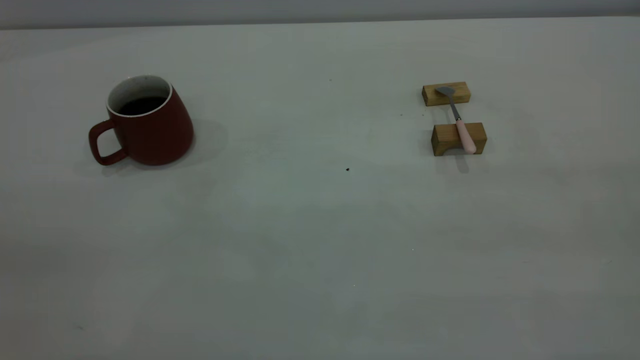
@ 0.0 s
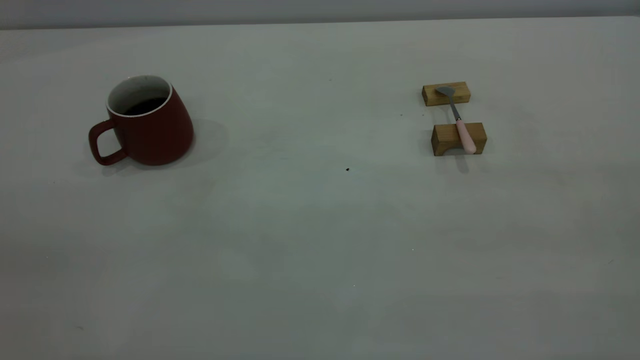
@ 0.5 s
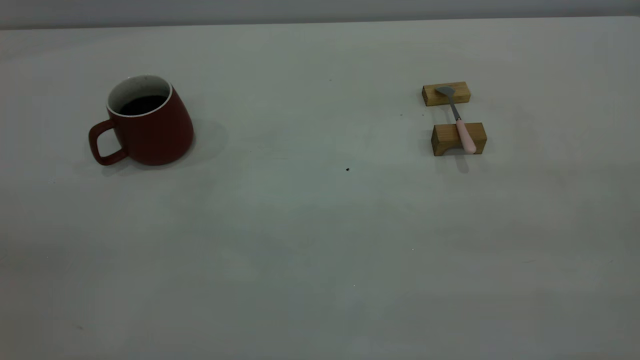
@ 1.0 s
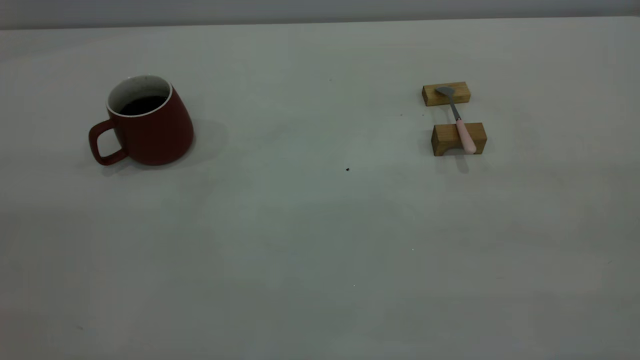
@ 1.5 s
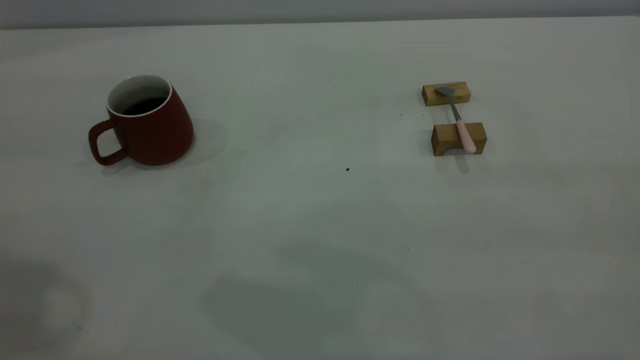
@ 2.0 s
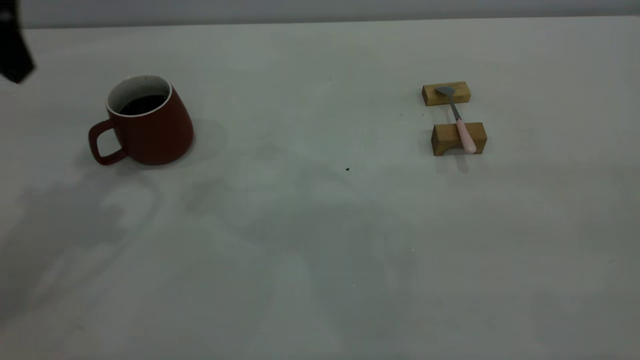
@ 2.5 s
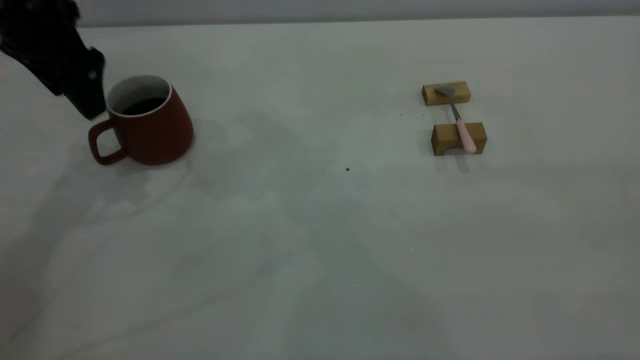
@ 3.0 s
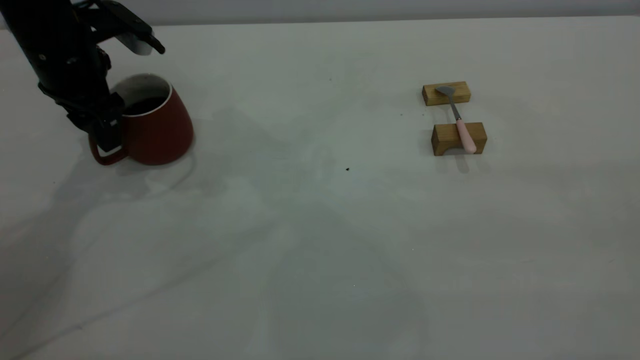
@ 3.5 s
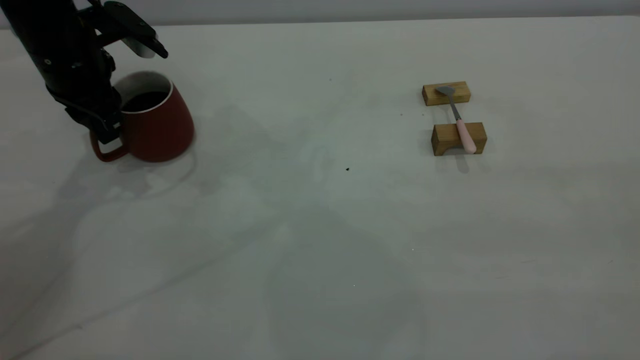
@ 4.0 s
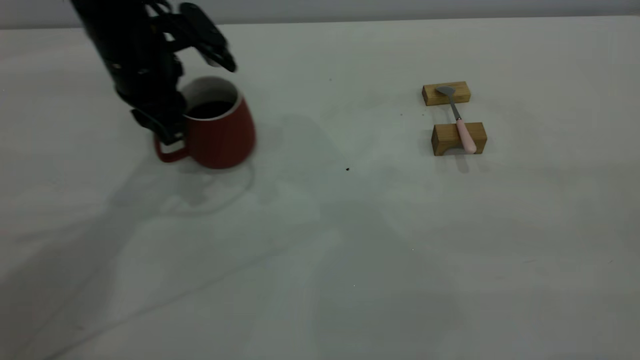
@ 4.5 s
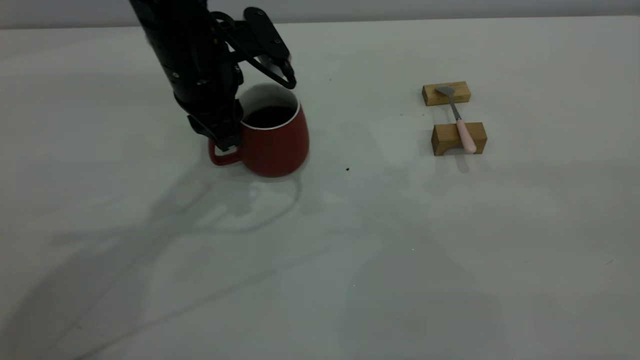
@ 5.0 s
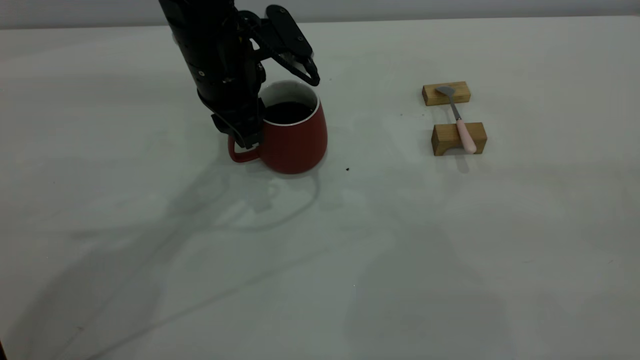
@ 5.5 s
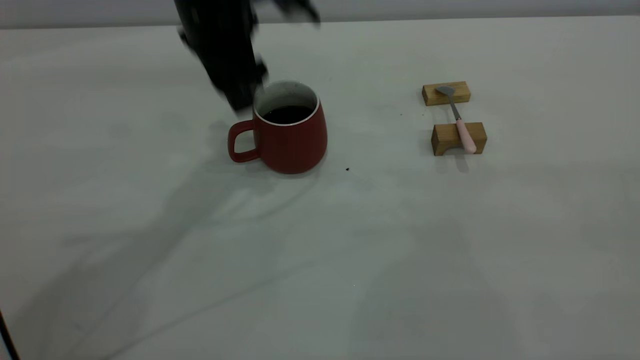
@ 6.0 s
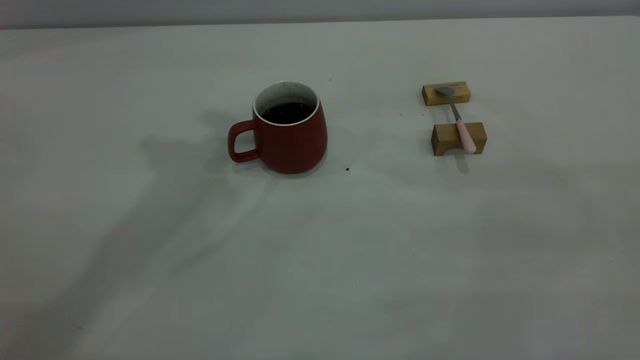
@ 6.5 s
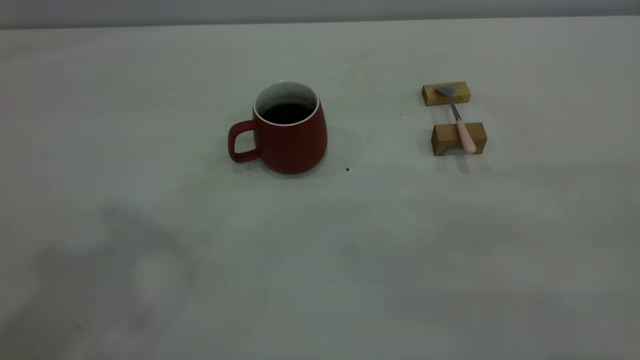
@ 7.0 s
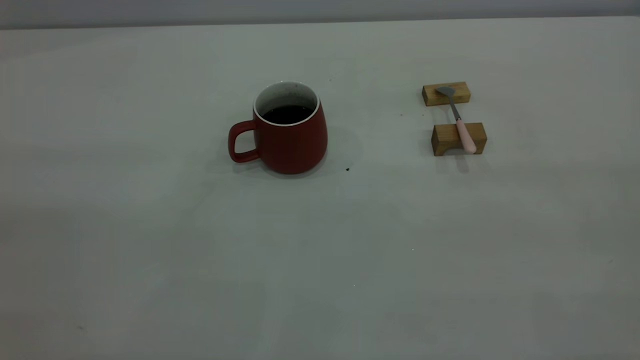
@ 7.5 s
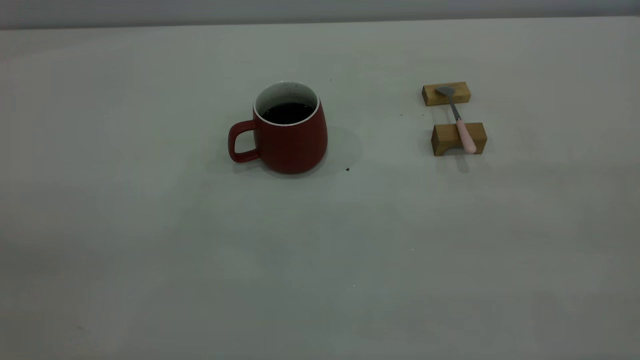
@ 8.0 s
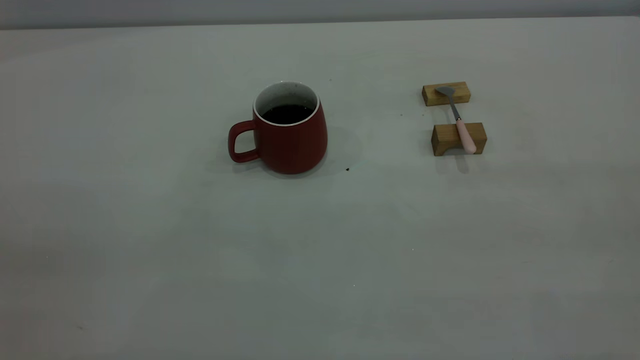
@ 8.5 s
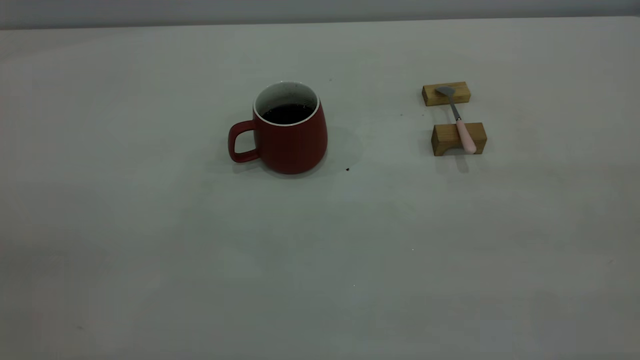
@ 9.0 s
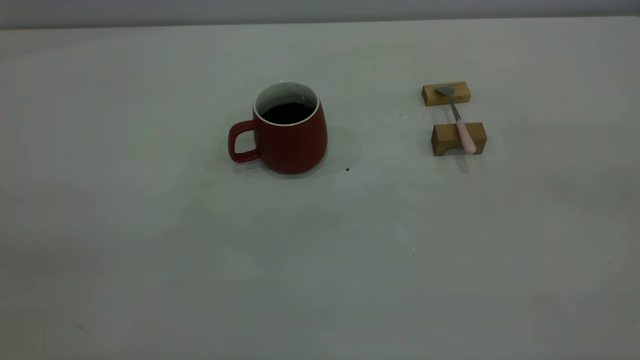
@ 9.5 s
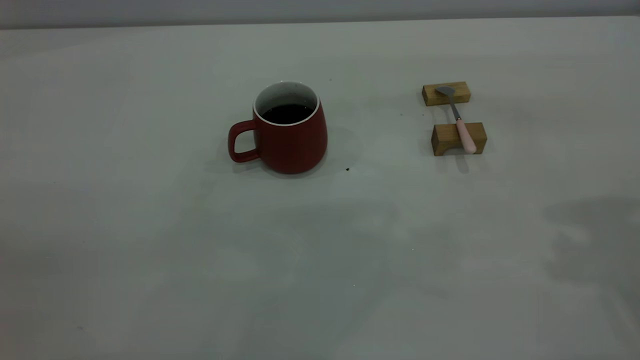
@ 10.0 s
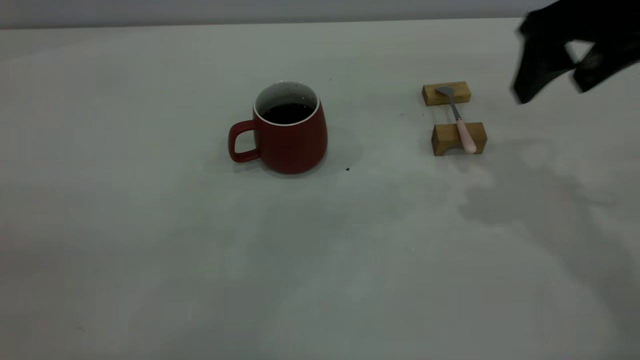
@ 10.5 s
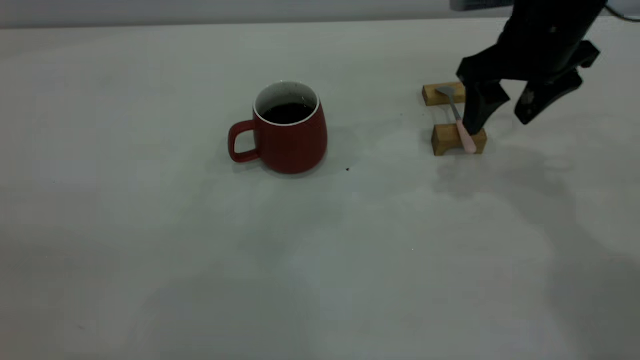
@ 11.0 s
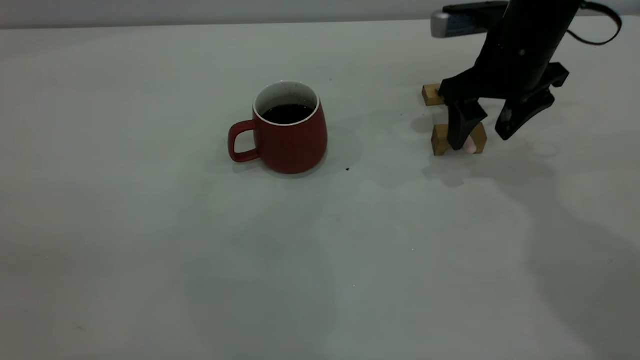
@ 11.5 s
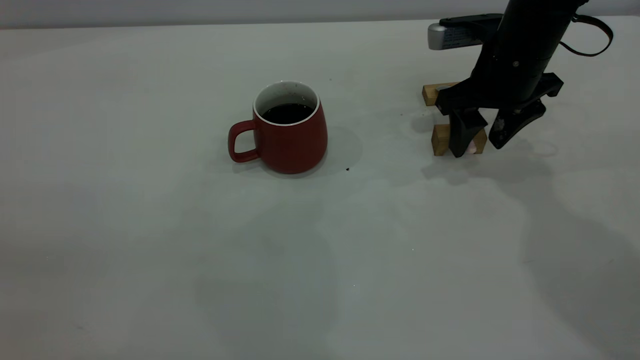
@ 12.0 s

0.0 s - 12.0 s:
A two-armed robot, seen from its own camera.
Step, 0.0 s - 6.0 s: Move the cup with coffee to the center of view.
2.0 s - 4.0 s: The left gripper goes some 35 cm downward and forward, and closes up.
4.0 s - 6.0 s: The left gripper moves to the right and upward, roughly 20 cm, and opens up.
6.0 s - 8.0 s: The left gripper is displaced backward and to the left by about 50 cm, and closes.
10.0 s - 12.0 s: The right gripper travels downward, forward and to the left by about 30 cm.

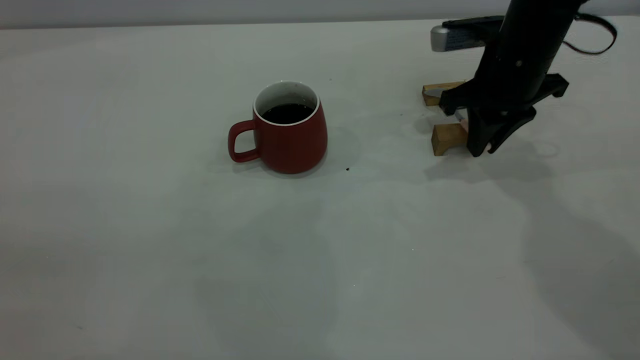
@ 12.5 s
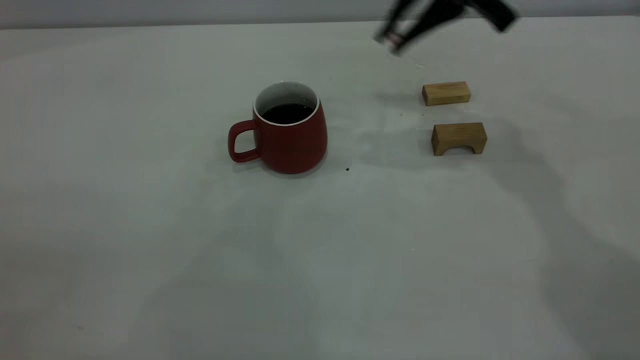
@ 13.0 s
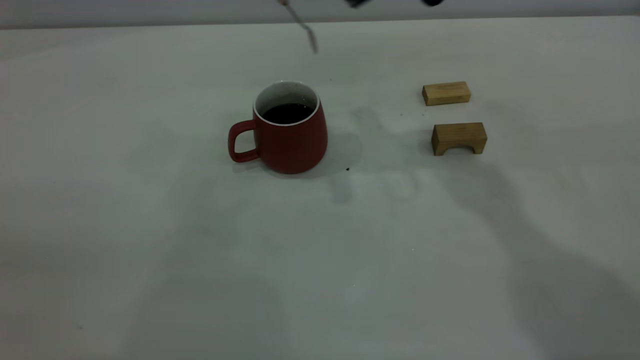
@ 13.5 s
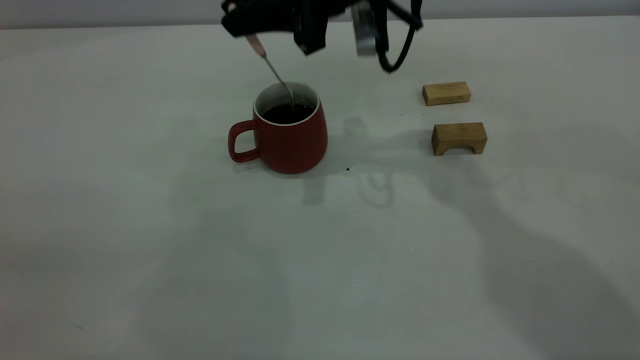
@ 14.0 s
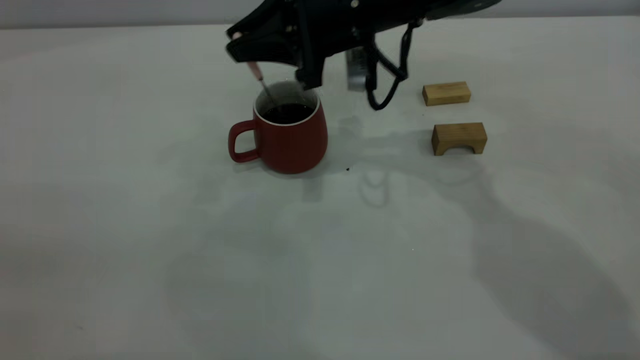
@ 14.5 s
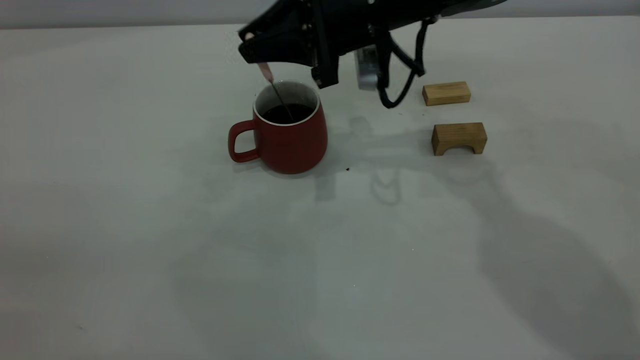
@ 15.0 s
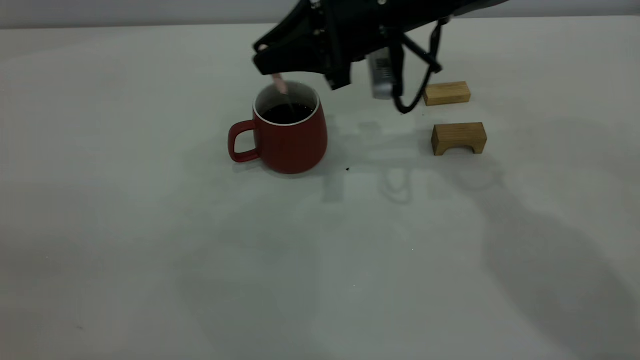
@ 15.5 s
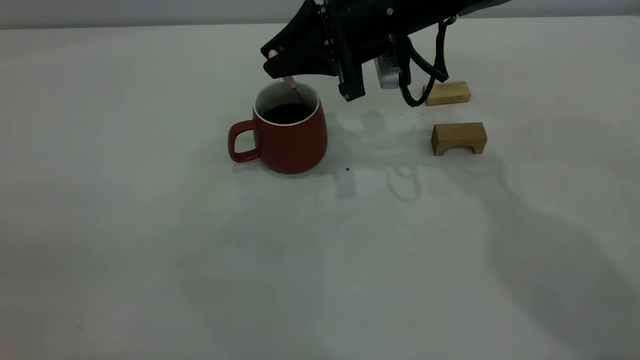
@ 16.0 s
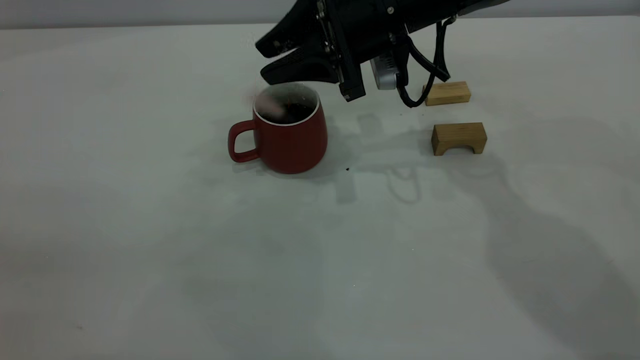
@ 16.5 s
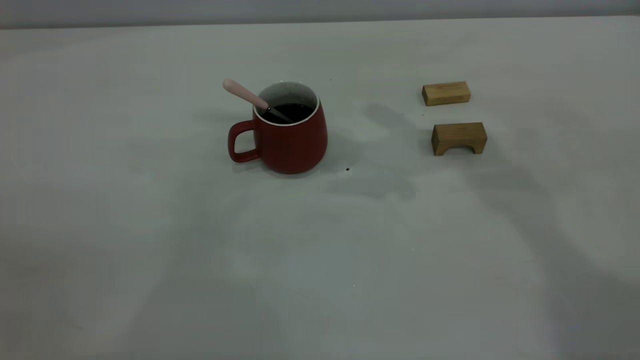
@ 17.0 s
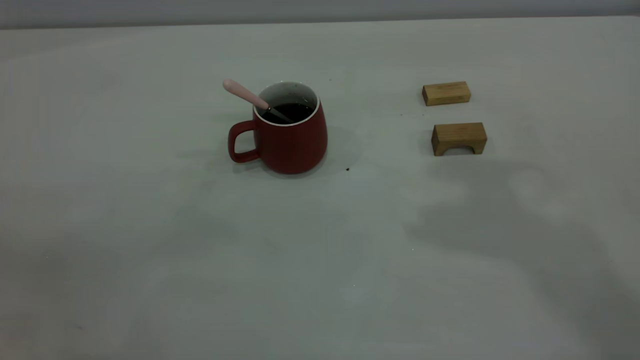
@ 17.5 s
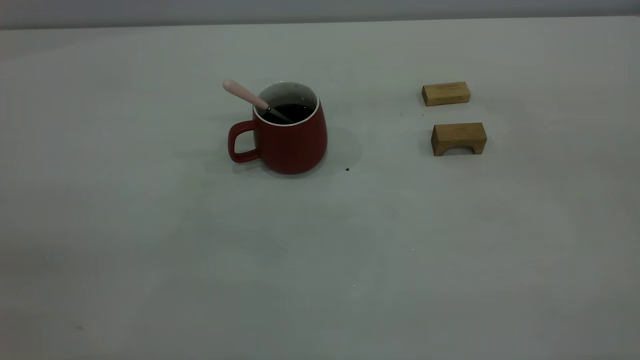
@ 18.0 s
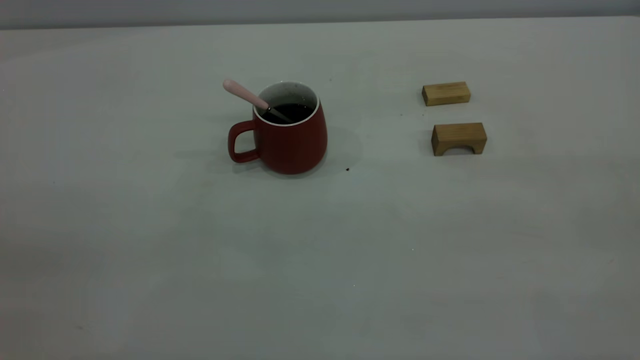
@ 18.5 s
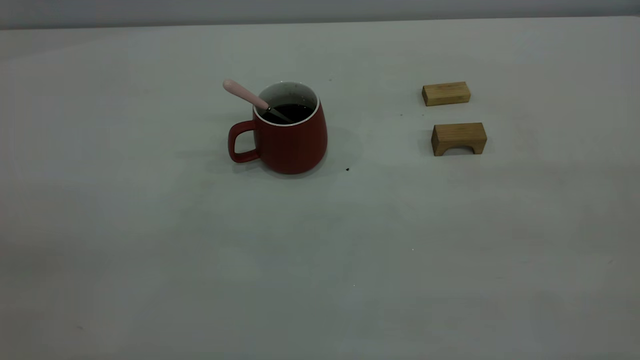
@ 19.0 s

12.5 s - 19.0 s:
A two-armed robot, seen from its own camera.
Step, 13.0 s - 16.5 s: Stir the coffee in the cup.
12.5 s - 14.5 s: The right gripper shifts roughly 15 cm to the left.
14.5 s - 17.0 s: The right gripper is displaced upward by some 15 cm, and opens up.
